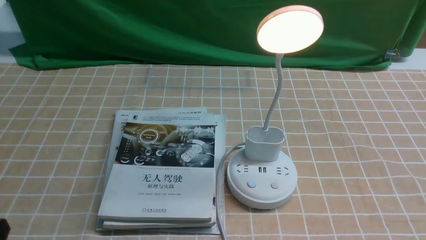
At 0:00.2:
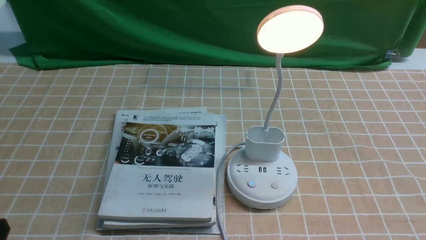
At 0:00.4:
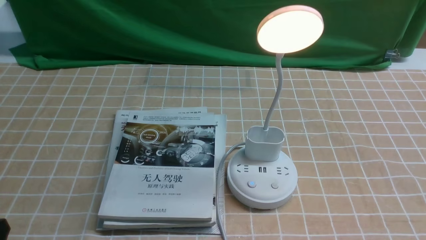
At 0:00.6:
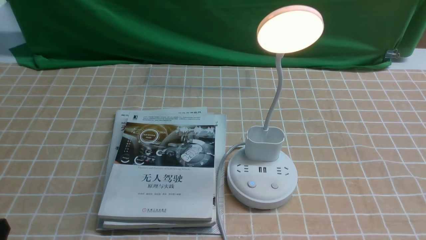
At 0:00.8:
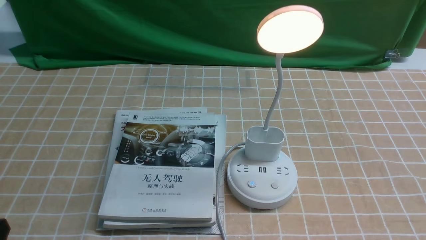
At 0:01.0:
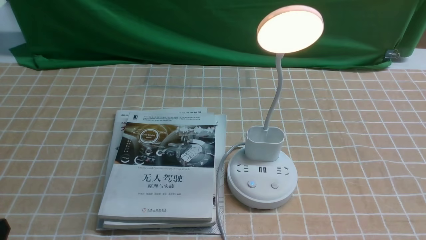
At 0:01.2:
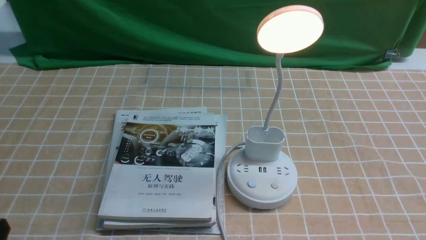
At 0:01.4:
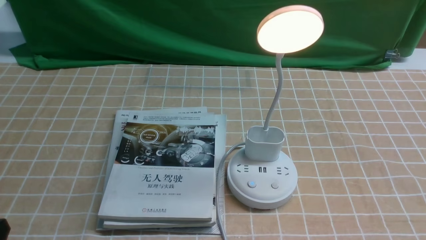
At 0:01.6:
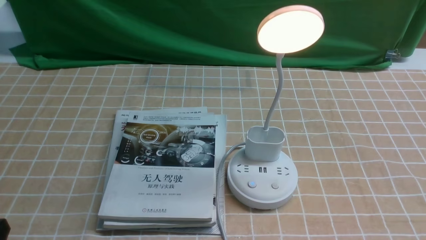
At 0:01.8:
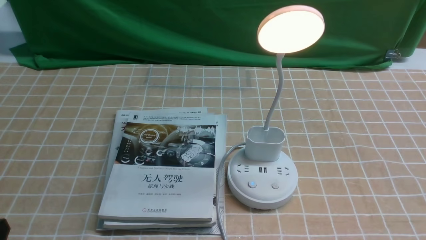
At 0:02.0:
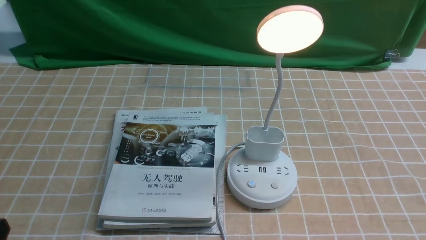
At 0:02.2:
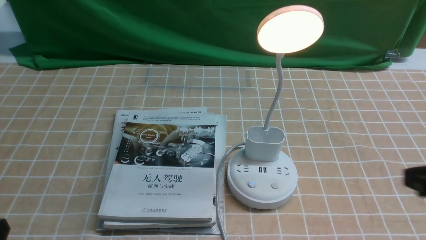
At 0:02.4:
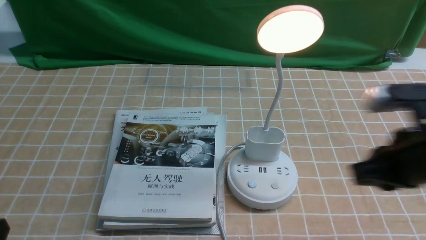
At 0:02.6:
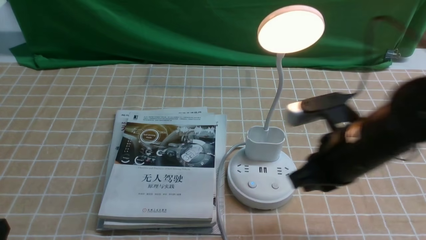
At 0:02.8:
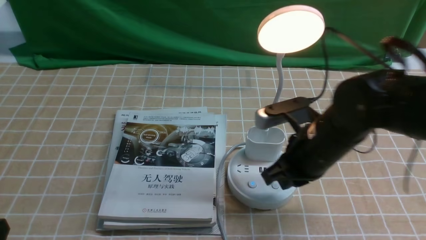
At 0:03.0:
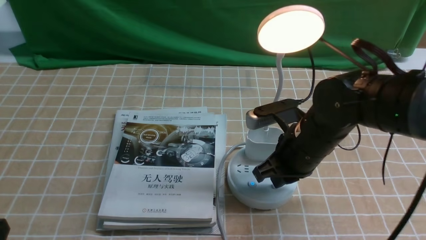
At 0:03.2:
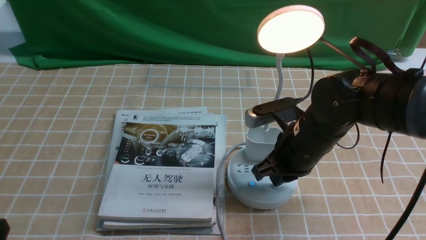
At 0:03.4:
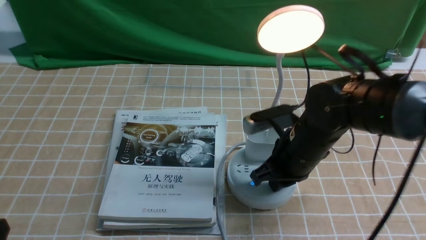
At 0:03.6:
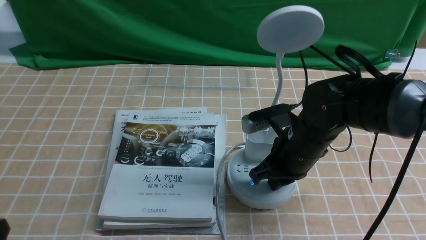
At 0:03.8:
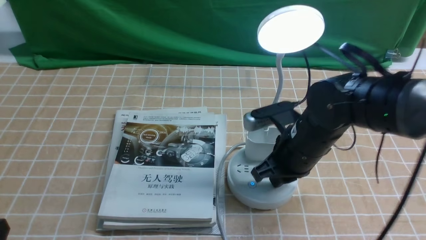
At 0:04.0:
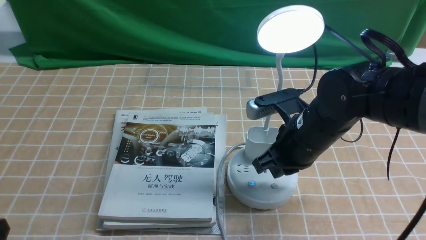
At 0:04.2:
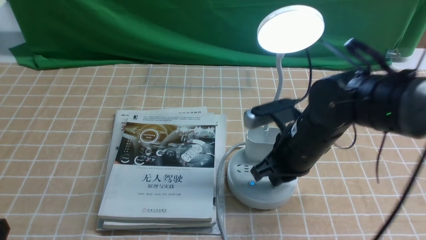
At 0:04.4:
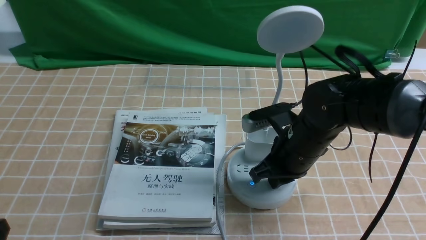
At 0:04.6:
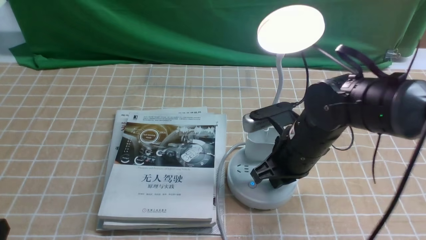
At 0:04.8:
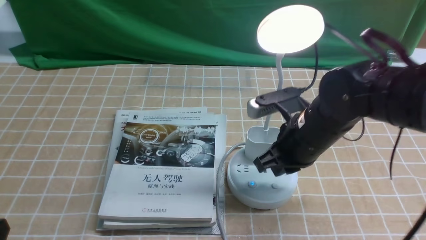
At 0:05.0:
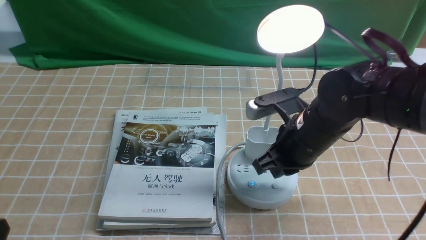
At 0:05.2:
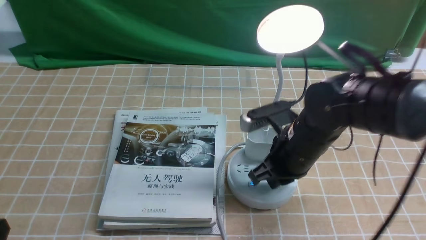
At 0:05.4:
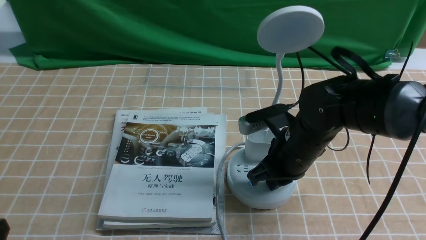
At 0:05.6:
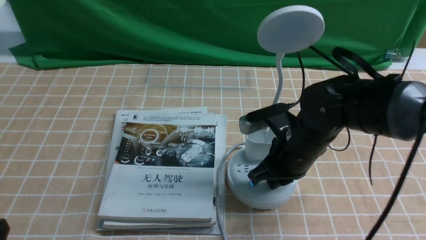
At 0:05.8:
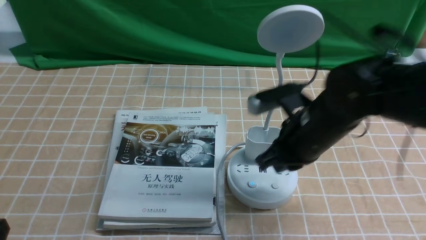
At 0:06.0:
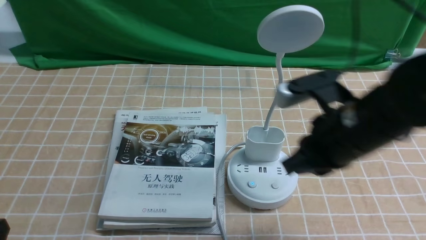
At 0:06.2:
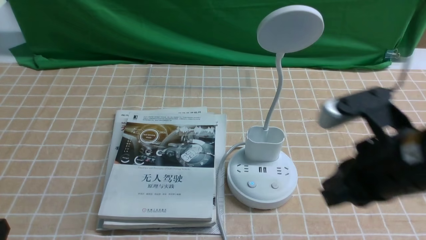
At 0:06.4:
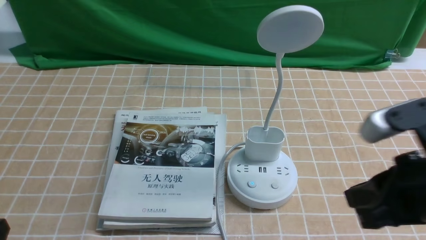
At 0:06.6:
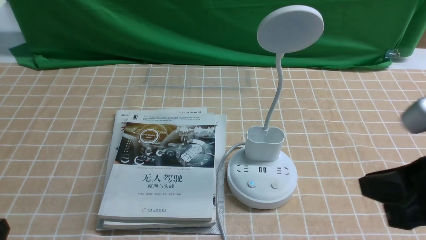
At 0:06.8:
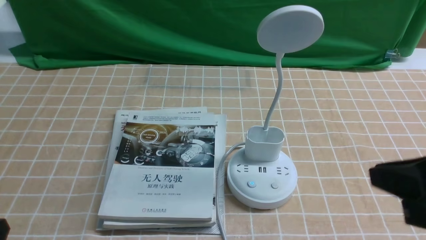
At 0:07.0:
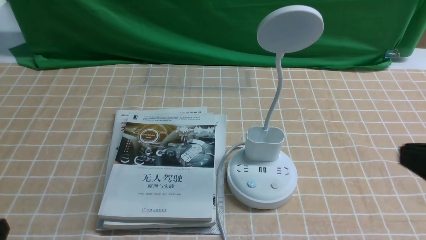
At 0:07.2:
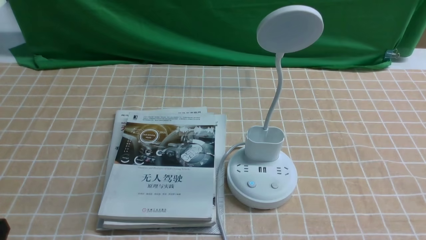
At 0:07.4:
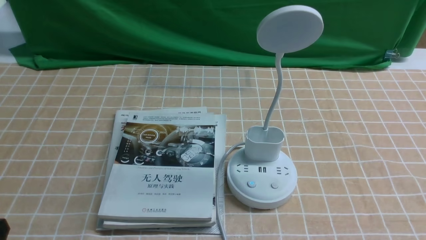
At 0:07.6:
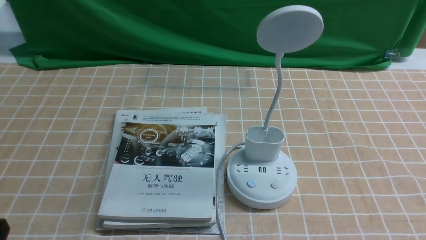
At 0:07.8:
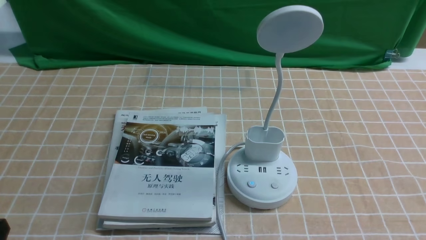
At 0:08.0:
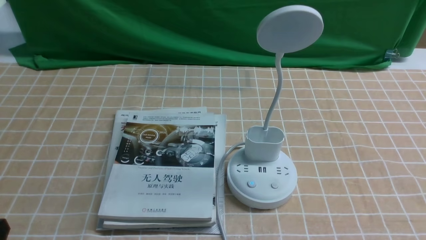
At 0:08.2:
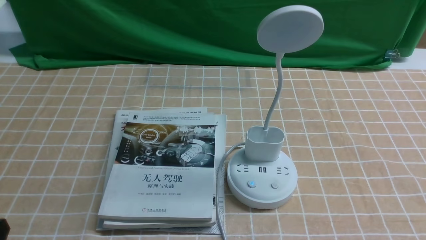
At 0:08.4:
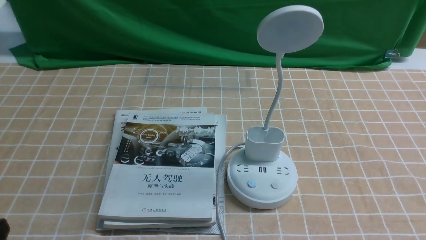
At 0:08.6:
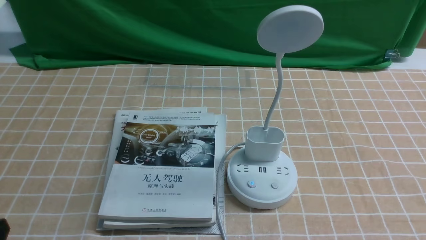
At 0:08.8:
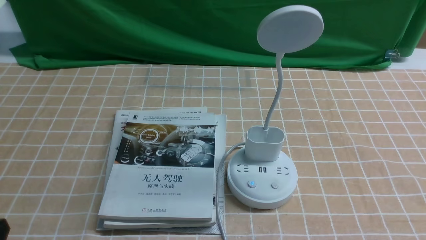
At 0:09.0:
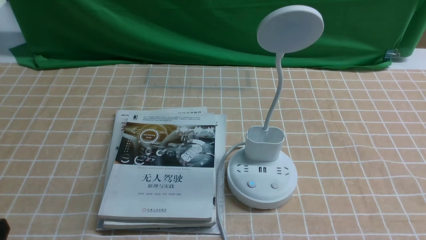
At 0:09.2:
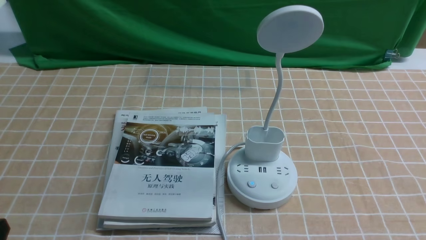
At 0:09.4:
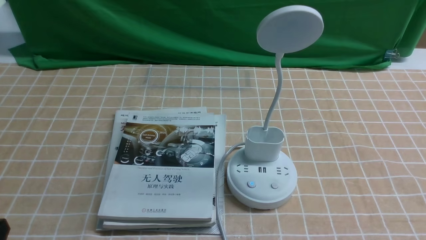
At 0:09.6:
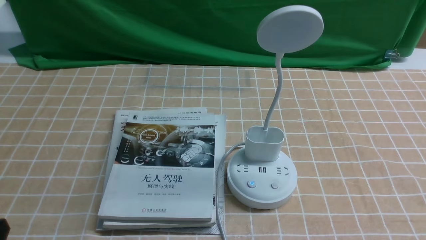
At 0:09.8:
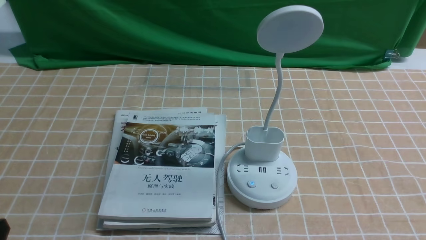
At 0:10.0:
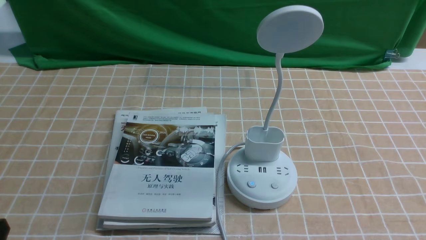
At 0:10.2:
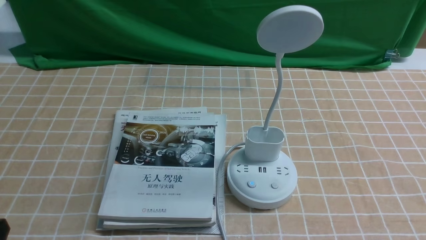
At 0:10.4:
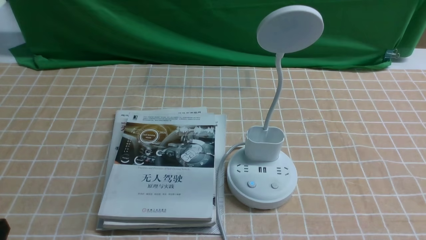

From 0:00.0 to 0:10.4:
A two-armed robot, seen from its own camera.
Task of the whole recording: turn off the desk lamp on the light coffee tablecloth by hand.
Step, from 0:00.0 to 0:05.6: use the right arm to press the button switch on the lamp holder.
From 0:01.4 to 0:03.0: The right gripper is displaced forward and to the left by approximately 30 cm, and closes its fingers.
From 0:03.0 to 0:04.4: The grippers make only small movements.
From 0:04.4 to 0:06.0: The right gripper is displaced upward by about 5 cm.
From 0:06.0 to 0:07.4: The right gripper shifts some 25 cm backward and to the right.
